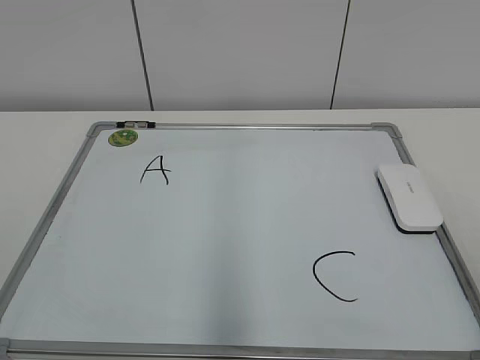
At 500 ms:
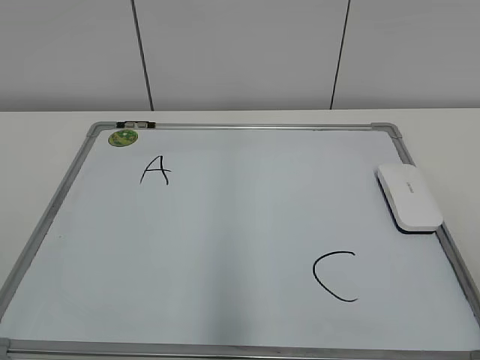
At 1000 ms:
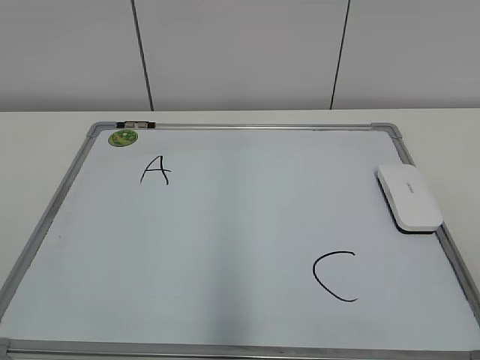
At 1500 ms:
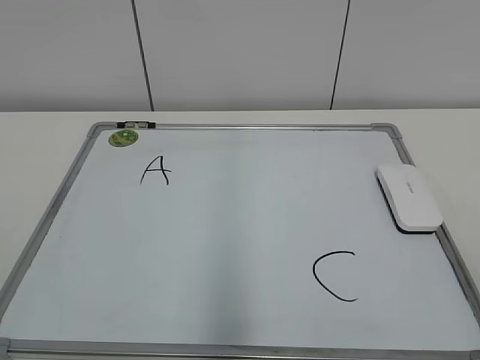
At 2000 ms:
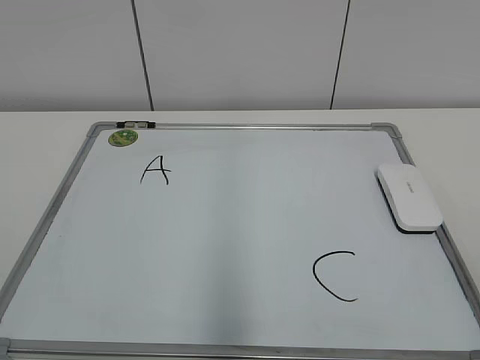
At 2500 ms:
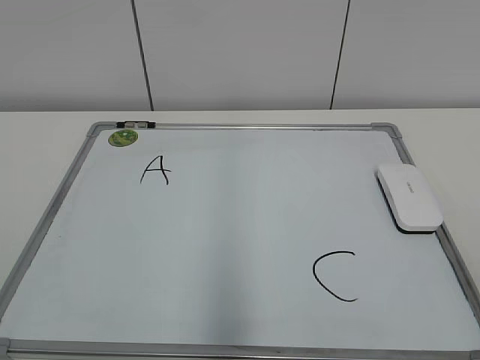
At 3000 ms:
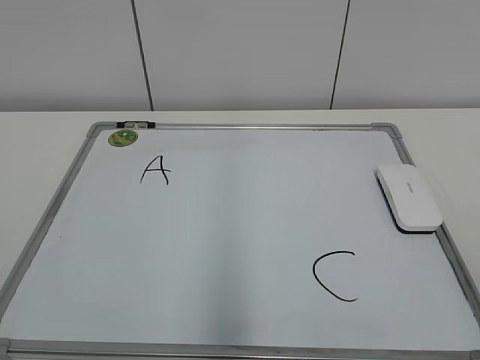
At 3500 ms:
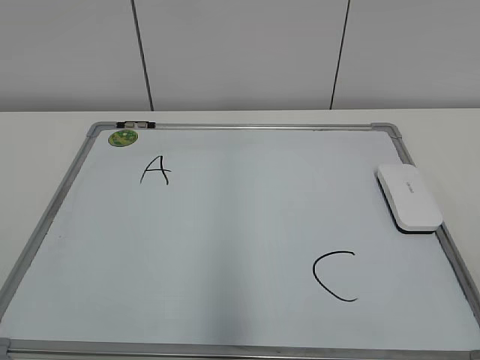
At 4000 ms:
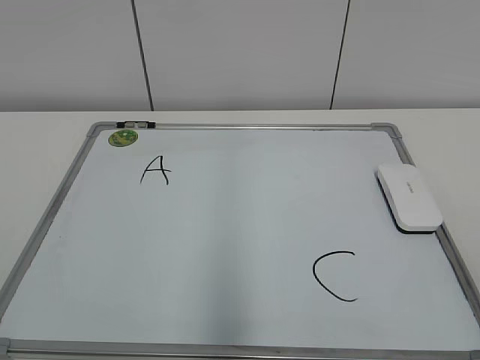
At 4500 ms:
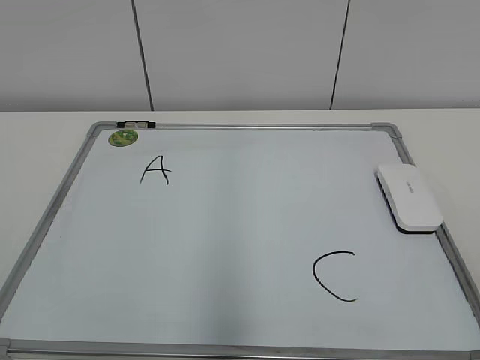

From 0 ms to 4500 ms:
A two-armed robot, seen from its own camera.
Task of the whole recording: pick up the eraser on the blackboard and erase the letter "B".
From 2000 ms to 4500 ms: Neither gripper changes place.

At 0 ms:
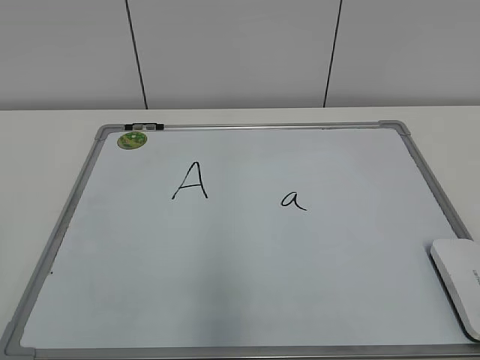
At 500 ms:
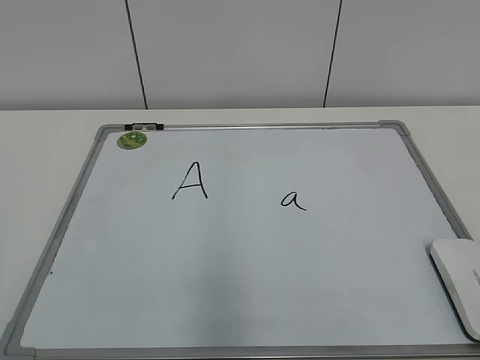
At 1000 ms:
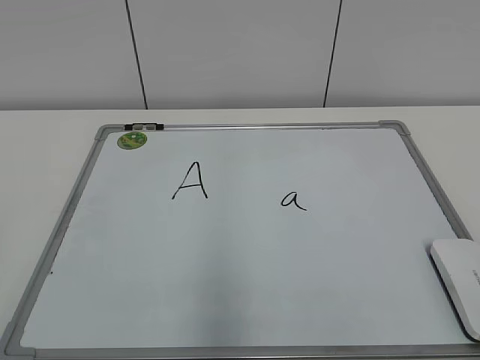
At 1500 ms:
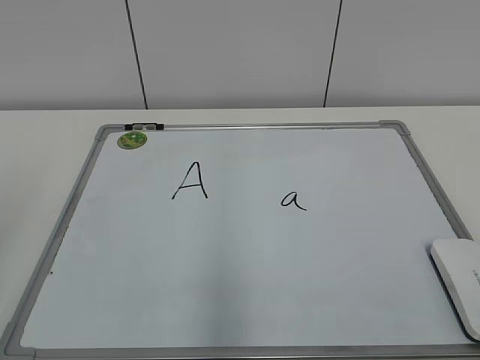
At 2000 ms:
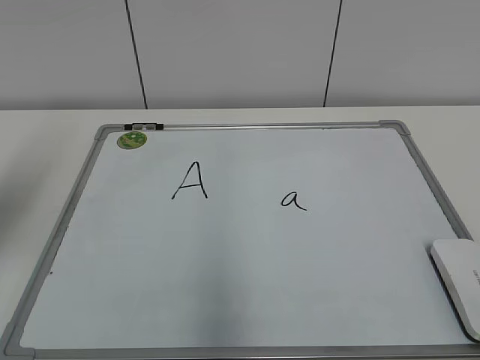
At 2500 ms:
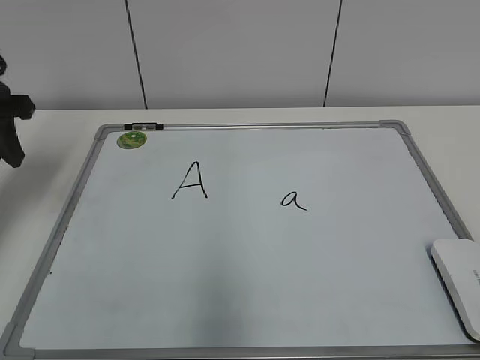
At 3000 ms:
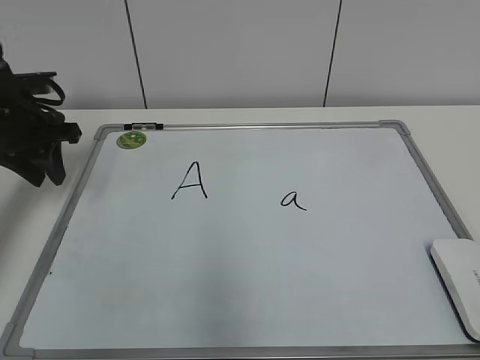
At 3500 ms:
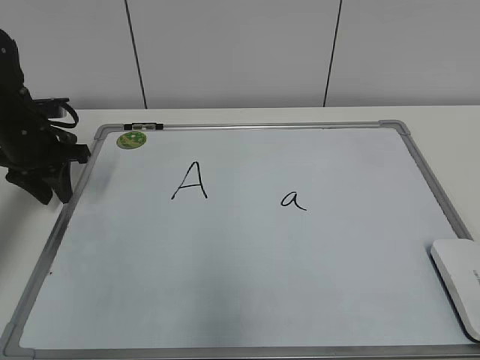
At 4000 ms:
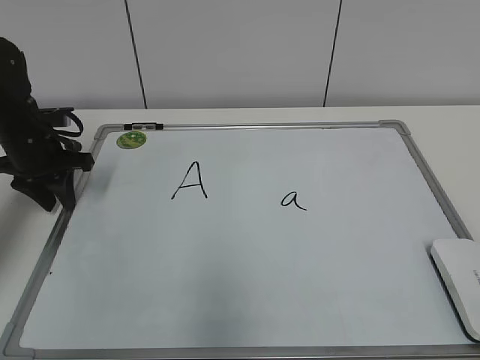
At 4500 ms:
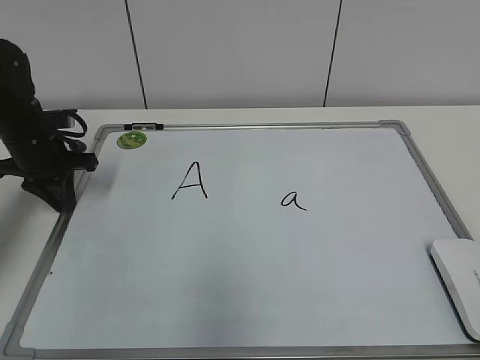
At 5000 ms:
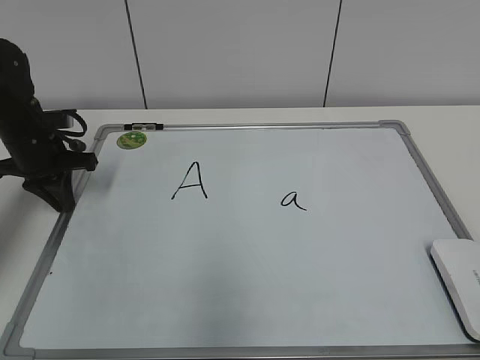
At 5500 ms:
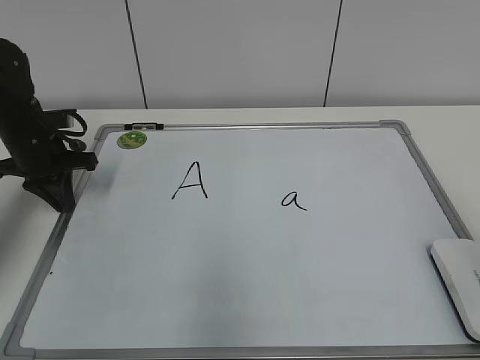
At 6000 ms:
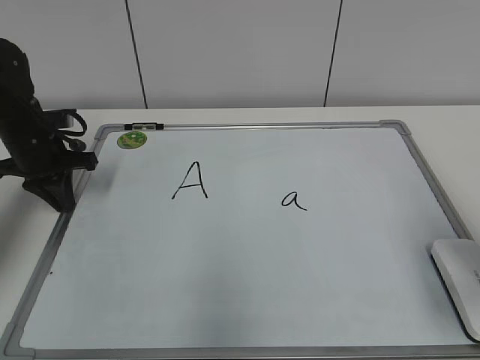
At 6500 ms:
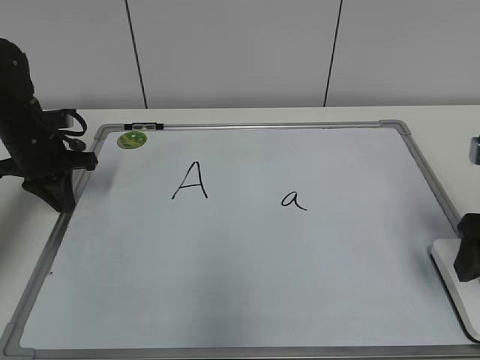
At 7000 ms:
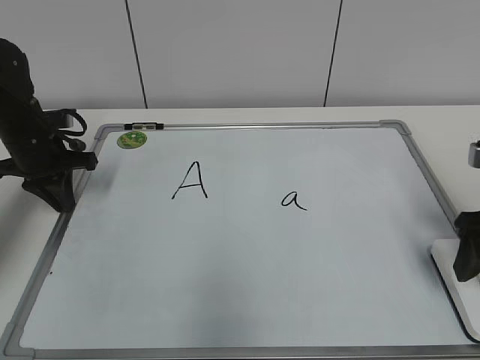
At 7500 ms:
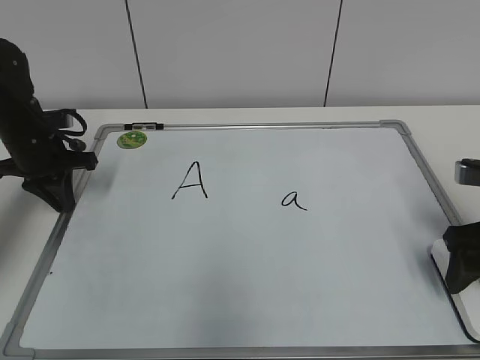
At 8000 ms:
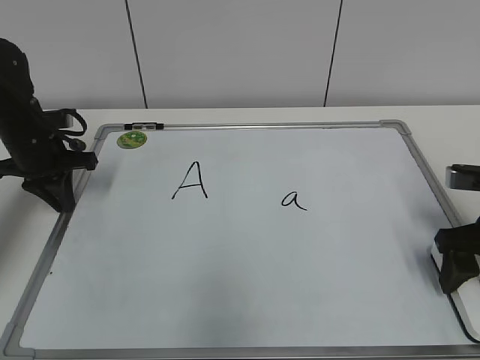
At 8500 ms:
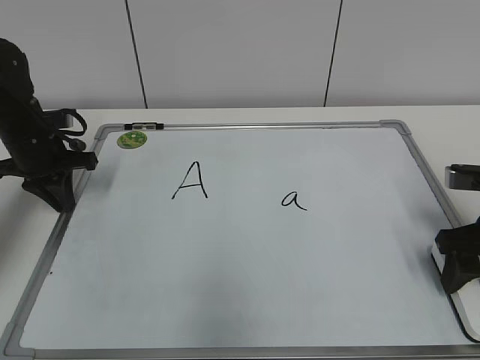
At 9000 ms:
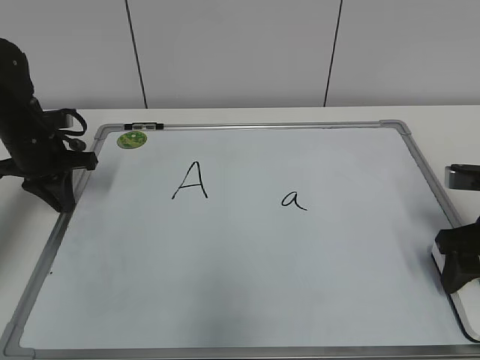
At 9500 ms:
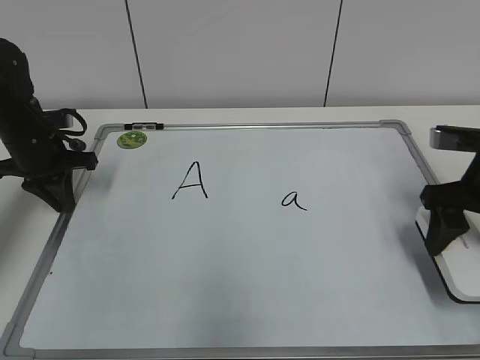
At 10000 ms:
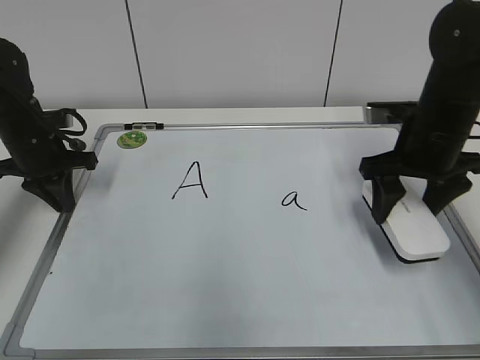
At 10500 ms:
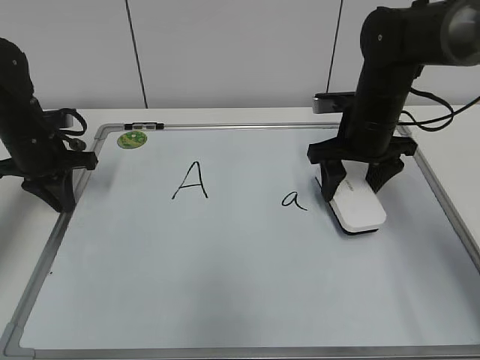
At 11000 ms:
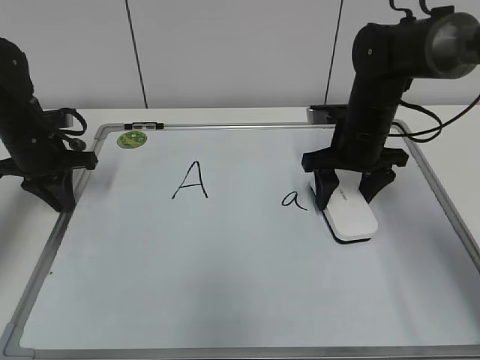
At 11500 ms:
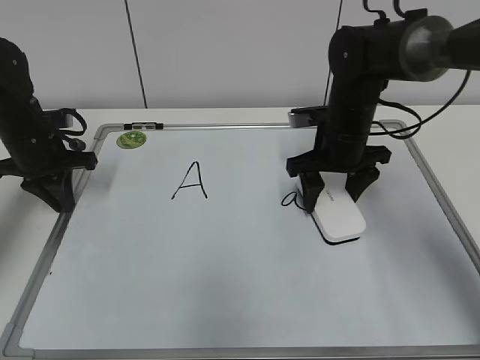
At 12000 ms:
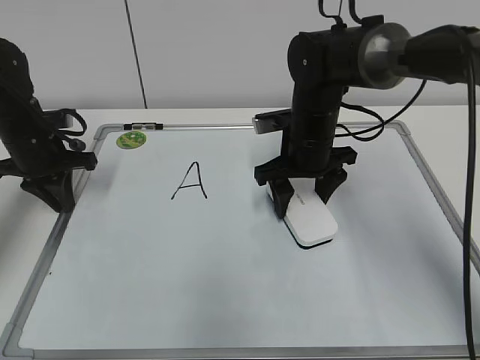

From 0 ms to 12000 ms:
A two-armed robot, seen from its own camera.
Task of the whole recording: pick up the eraser on the blackboard and erase the letter "a".
Step, from 0 ms to 4500 ms: Hold the drawing board steady with your left hand.
Step, from 5000 ms to 8500 ms: Grab the eraser with your right hand.
From 2000 ms to 4000 ms: The left gripper travels downward and forward by approximately 25 cm.
From 4000 ms to 6000 ms: The left gripper closes its fingers; the right gripper shifts some 20 cm forward, and opens its fingers.
From 6000 ms to 8000 ms: The right gripper goes about 10 cm forward and downward, and closes up.
From 8000 ms to 10000 ms: The right gripper is displaced forward and to the left by about 10 cm, and closes its fingers.
From 10000 ms to 12000 ms: The right gripper is displaced to the left, forward and downward by some 15 cm.

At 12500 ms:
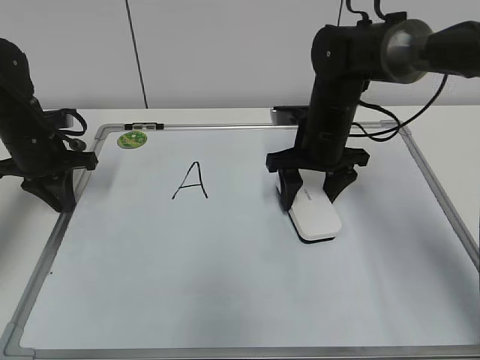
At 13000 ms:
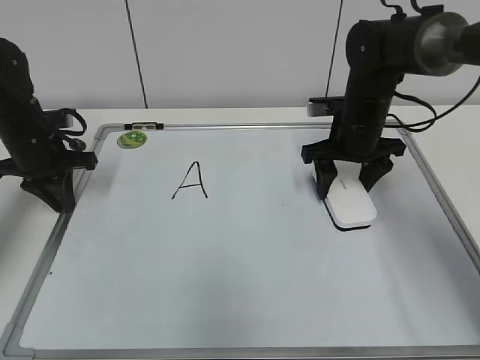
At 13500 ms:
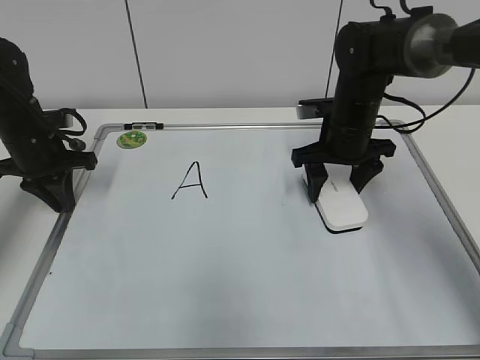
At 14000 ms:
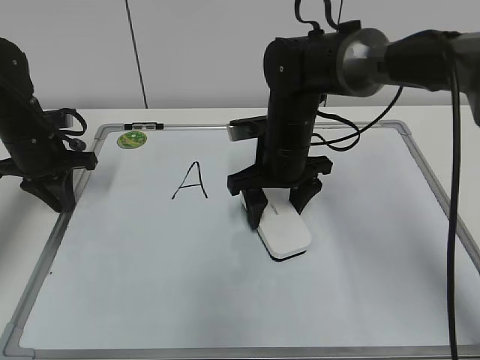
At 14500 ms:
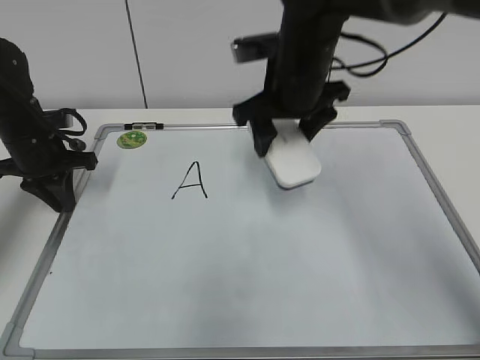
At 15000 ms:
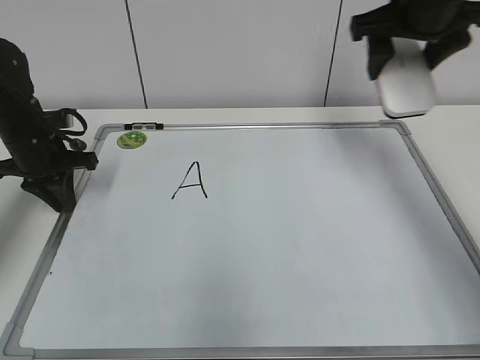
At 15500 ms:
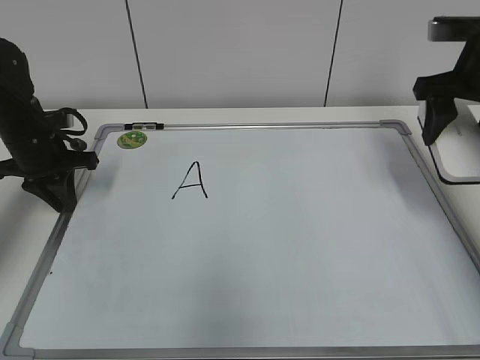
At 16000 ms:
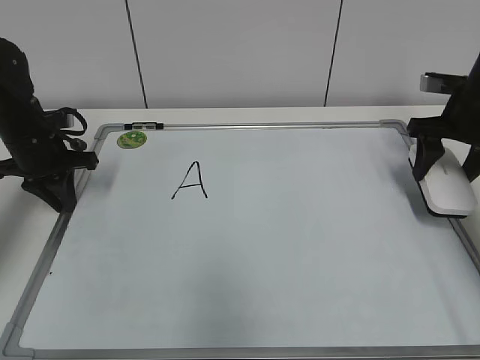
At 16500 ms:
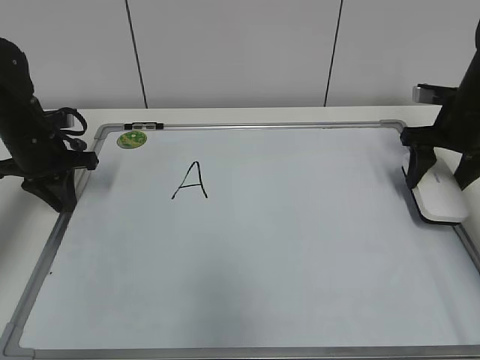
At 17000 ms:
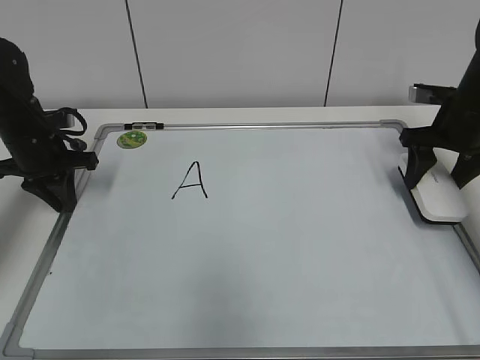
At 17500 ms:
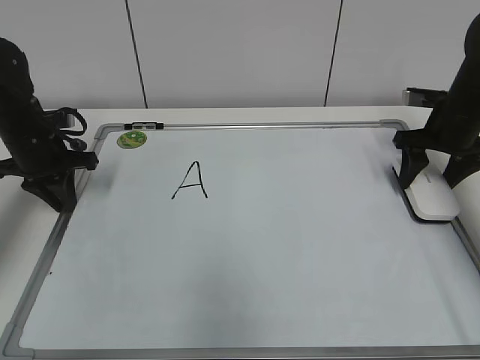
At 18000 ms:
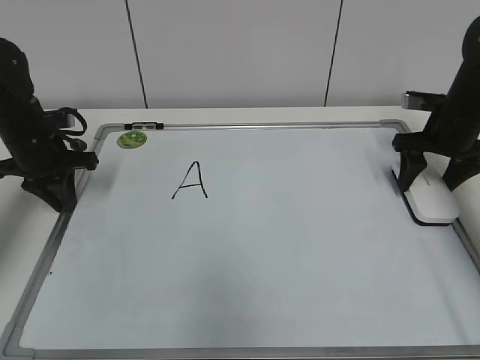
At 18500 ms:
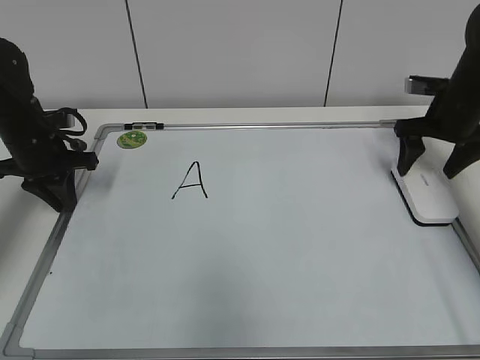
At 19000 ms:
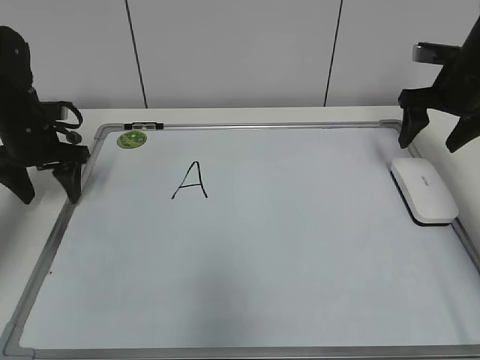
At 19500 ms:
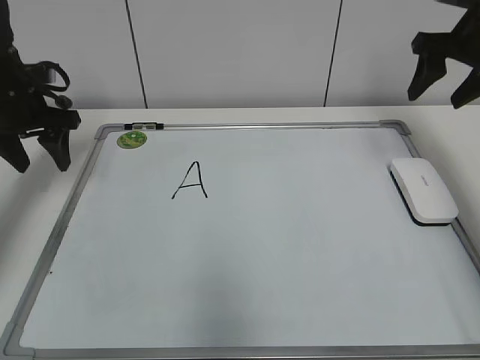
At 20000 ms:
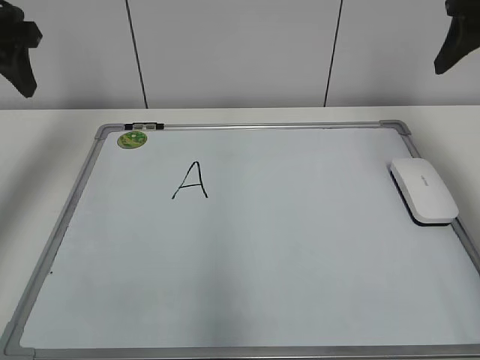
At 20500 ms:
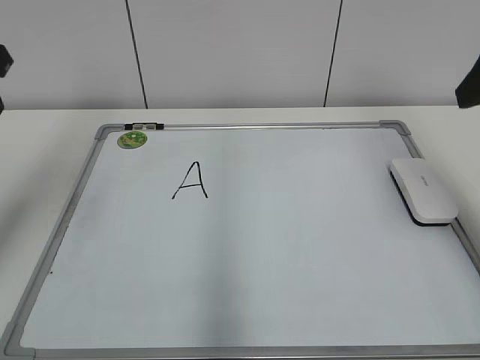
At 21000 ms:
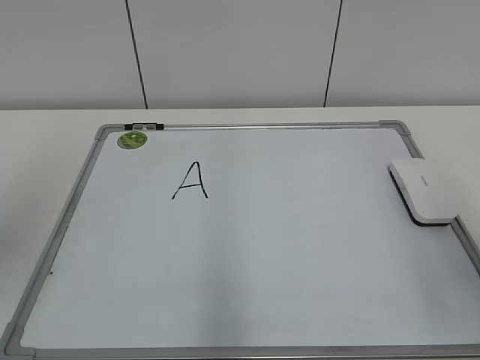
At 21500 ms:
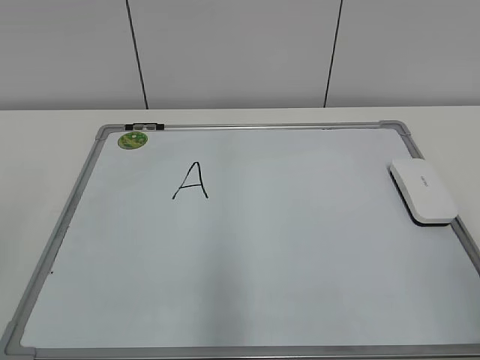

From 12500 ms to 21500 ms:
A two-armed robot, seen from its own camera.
Task of the whole recording: pick up the eraser on the blackboard and erase the letter "a".
Step, from 14500 ms to 18000 ms: Put down the eraser with your right hand.
From 12500 ms to 14500 ms: The right gripper heads upward and to the left, covering about 10 cm.
From 14500 ms to 17000 ms: The right gripper moves to the right, approximately 25 cm.
From 17000 ms to 19500 ms: The right gripper goes some 10 cm upward, and opens and closes again, while the left gripper moves upward, approximately 10 cm, and opens up.
From 19500 ms to 21500 ms: The two grippers go approximately 35 cm backward.
